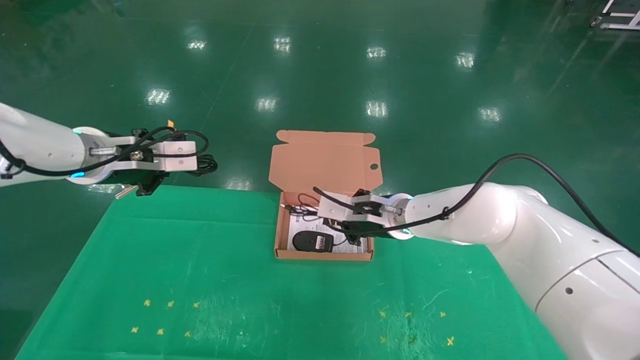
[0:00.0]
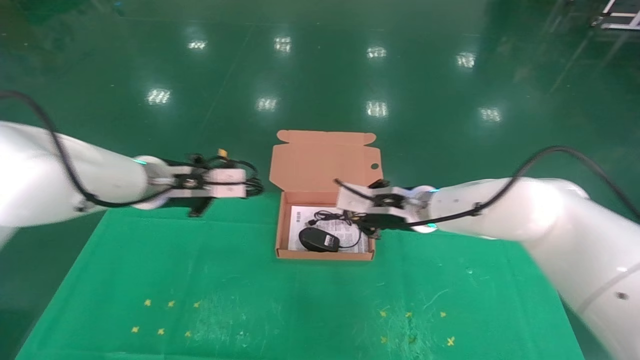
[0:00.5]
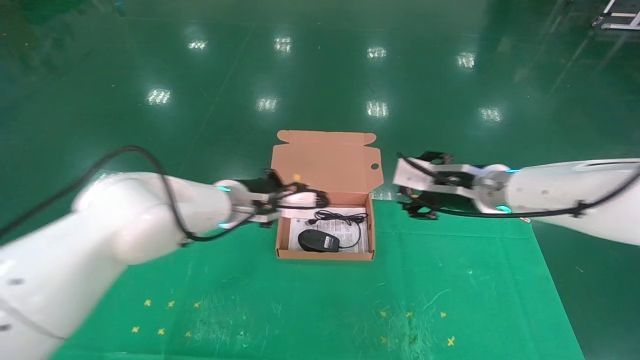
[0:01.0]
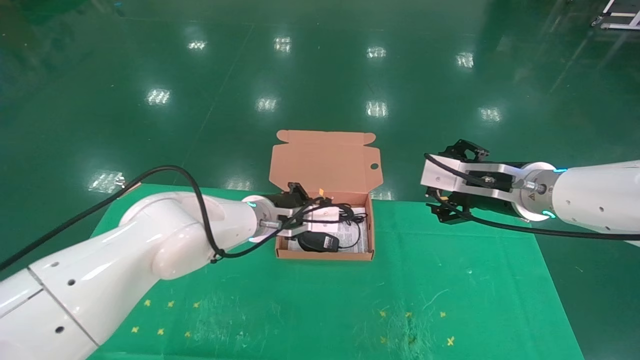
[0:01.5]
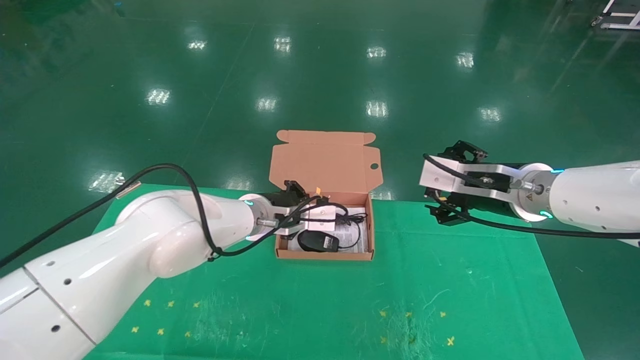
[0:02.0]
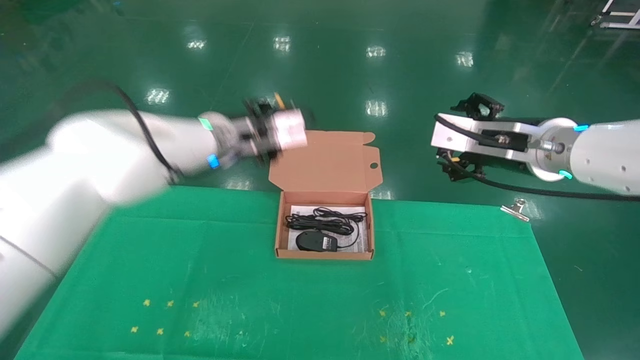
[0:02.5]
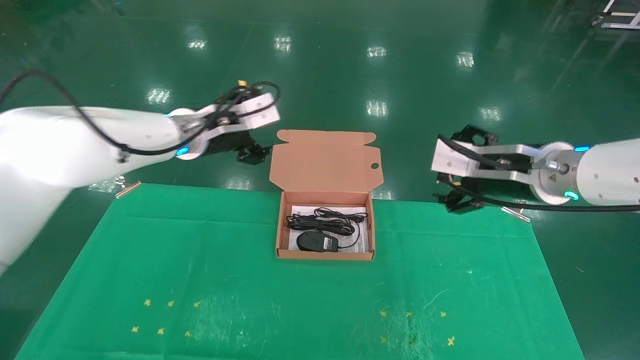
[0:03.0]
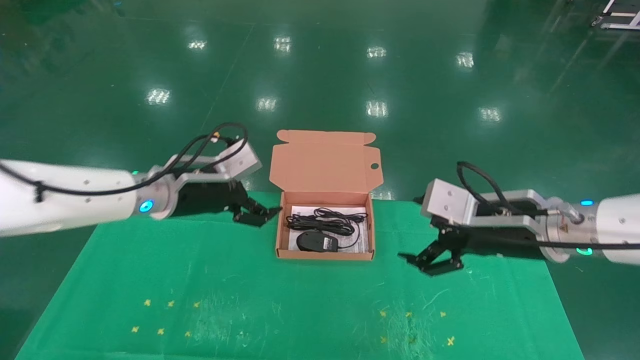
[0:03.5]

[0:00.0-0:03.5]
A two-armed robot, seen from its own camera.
Task of the whole recording: grasp data cable left put into box grasp mouse right put into box.
Step, 0:00.0 to 0:02.5: Place the mouse and power cord into the box.
0:00.0 to 0:02.0: The left gripper is displaced to the right and downward by approximately 20 cm. Meanwhile the right gripper is displaced to the right, backward and upward by roughly 20 cm, and opens.
0:02.0 to 0:03.5: The left gripper goes some 10 cm to the left, and opens its fingers. The right gripper shifts about 5 cm backward.
